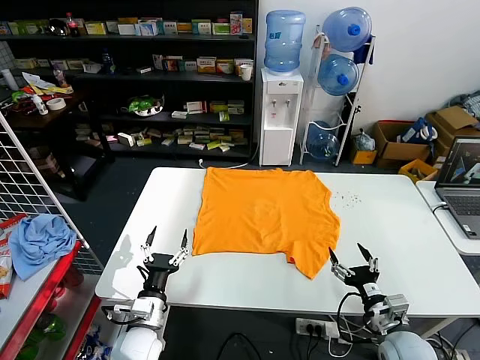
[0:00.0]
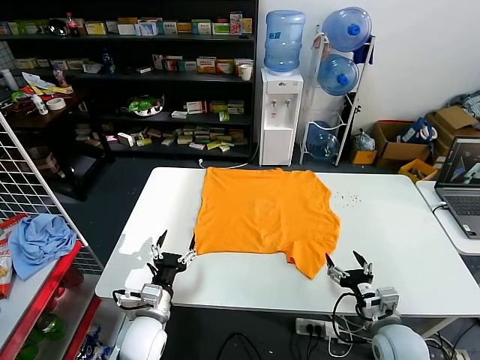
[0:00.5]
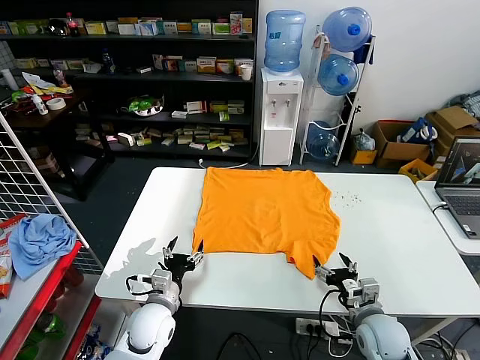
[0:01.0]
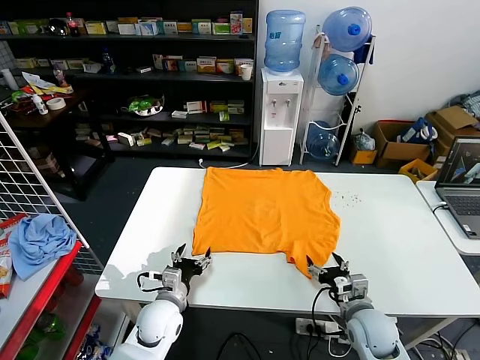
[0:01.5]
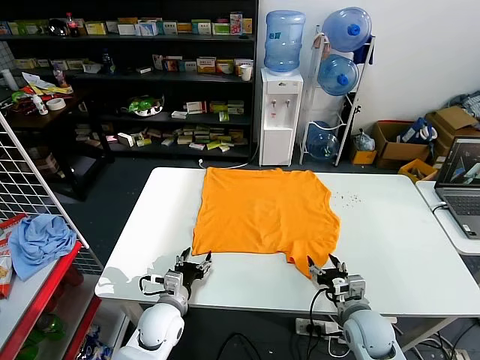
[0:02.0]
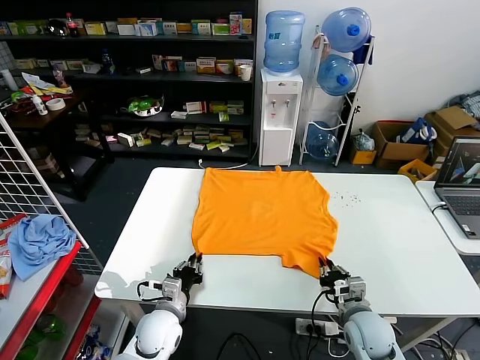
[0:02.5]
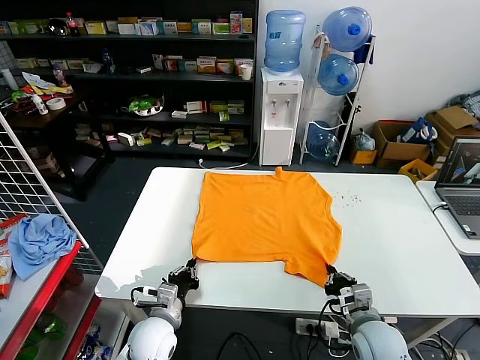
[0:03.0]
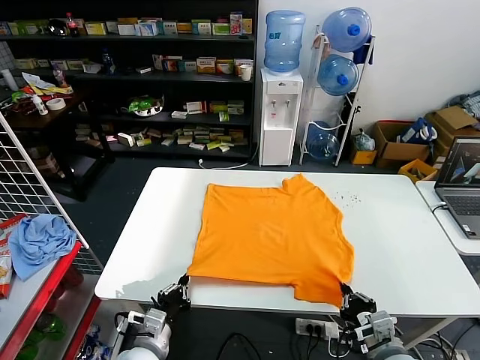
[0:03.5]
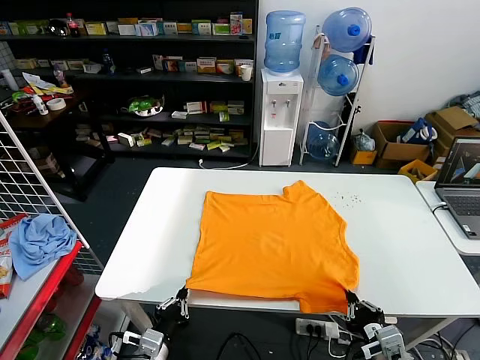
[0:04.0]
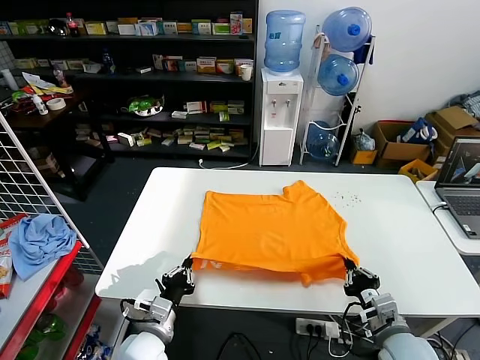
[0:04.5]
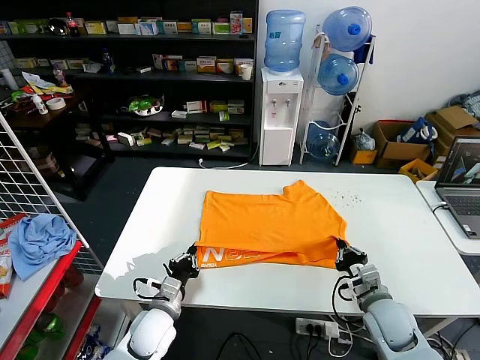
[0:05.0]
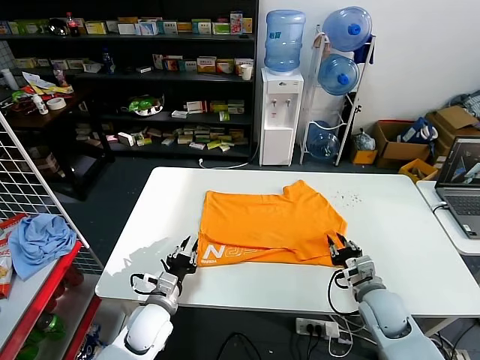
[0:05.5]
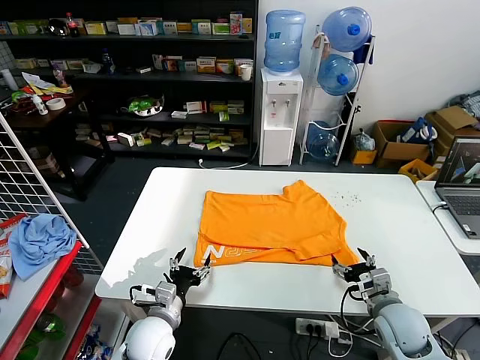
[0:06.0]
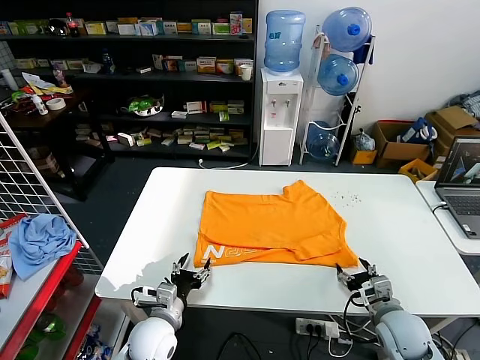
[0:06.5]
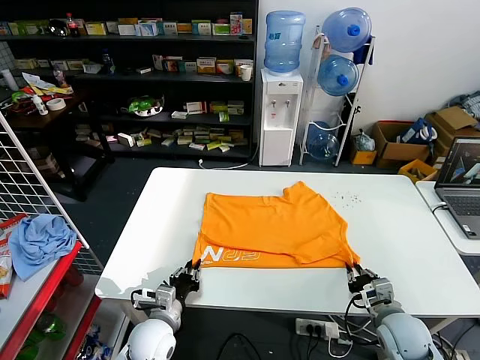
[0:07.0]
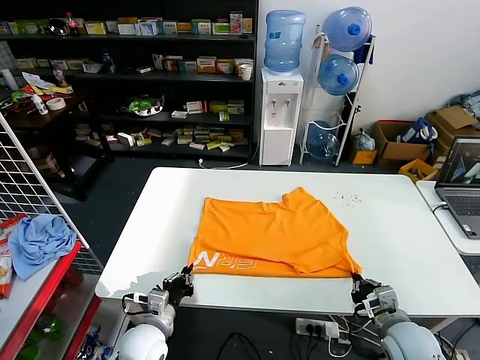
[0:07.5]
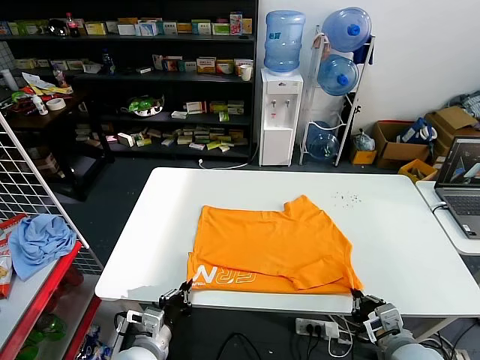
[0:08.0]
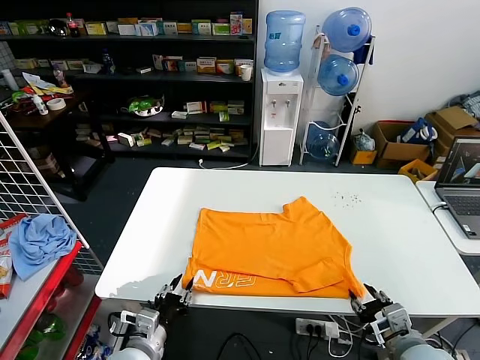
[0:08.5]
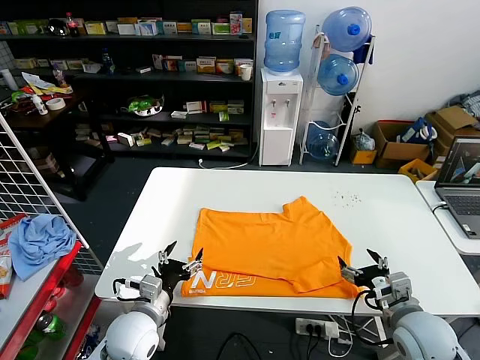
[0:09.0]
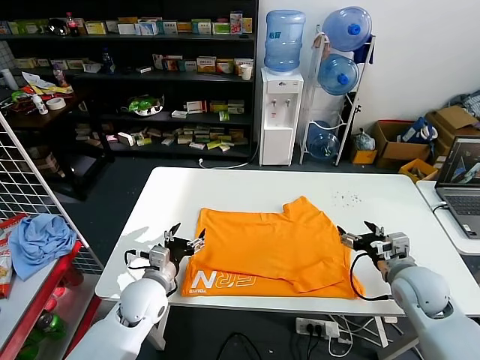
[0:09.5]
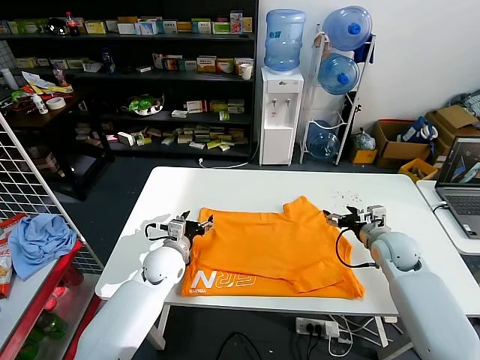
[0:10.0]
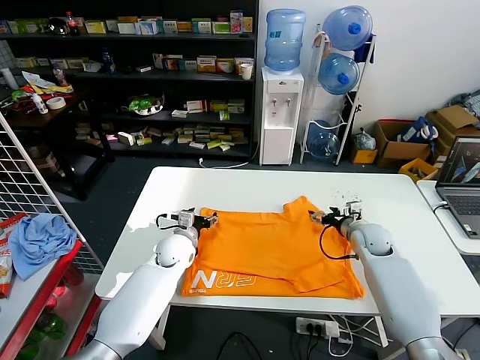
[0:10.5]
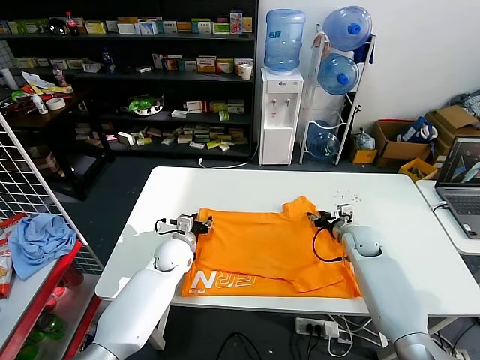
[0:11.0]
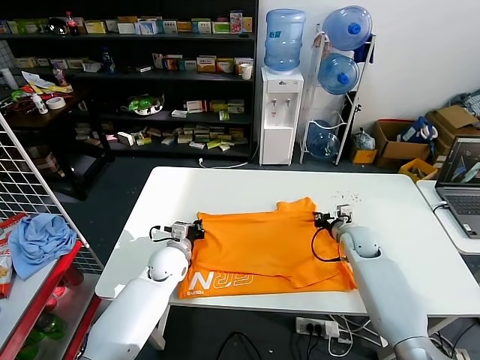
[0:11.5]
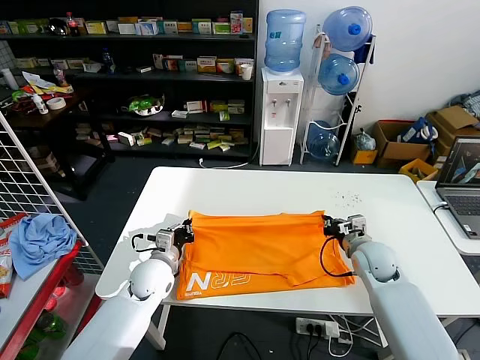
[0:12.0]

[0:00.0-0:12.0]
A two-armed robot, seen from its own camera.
Task of the whole recording: fold and organize the clothes.
Step, 0:00.0 to 0:02.5: use both grippers simultaneously to clamp the lower edge of the clothing fabric.
Step, 0:03.0 to 0:05.5: use both grippers to drag the lower edge of the fabric forward and fold it over the upper edge.
Step, 0:06.0 to 0:08.5: Drag the clothes downward with both gripper.
Step, 0:09.0 to 0:11.5: use both grippers simultaneously to clamp the upper edge of the clothing fabric.
0:02.0 to 0:04.0: The left gripper goes approximately 15 cm backward, and closes its fingers; the right gripper moves backward and upward, some 15 cm, and closes its fingers.
0:04.0 to 0:06.0: Both grippers travel together forward, approximately 10 cm. The right gripper opens; the left gripper opens its fingers.
0:06.0 to 0:08.0: The grippers both shift backward by some 5 cm. The left gripper closes up; the right gripper closes.
0:08.0 to 0:10.0: Both grippers move forward, some 25 cm. The left gripper opens up; the right gripper opens.
0:10.0 to 0:12.0: The left gripper closes, while the right gripper travels forward and back again, approximately 5 cm each way, and closes.

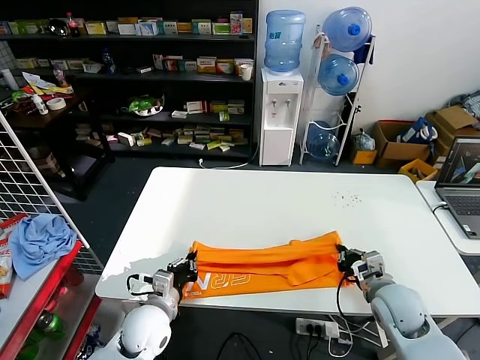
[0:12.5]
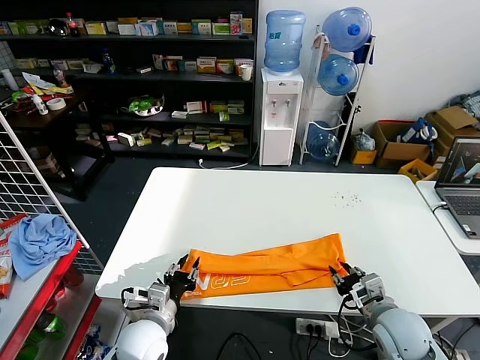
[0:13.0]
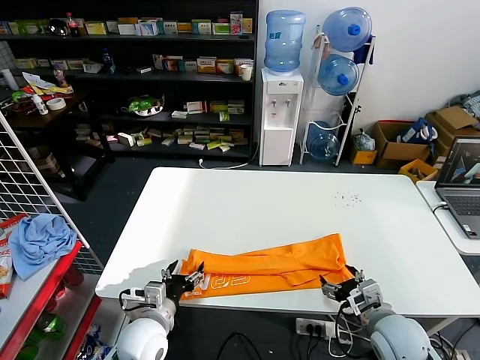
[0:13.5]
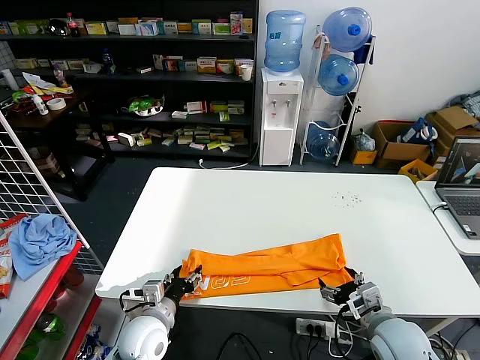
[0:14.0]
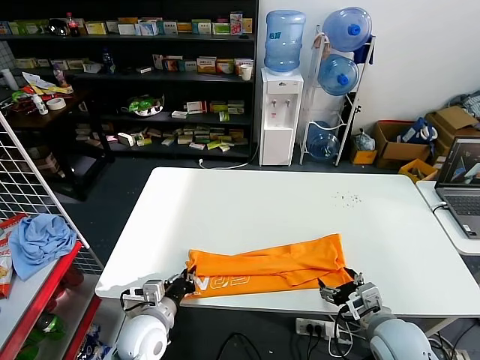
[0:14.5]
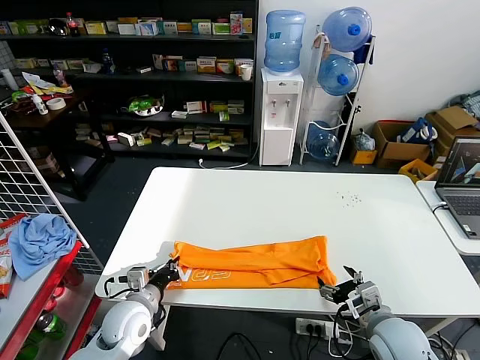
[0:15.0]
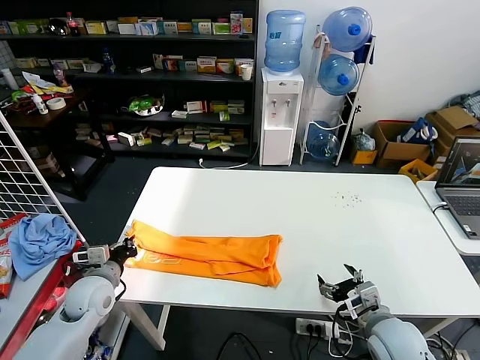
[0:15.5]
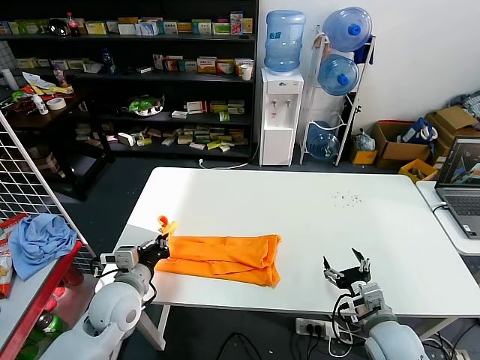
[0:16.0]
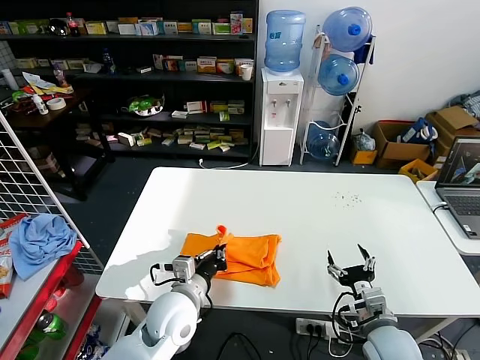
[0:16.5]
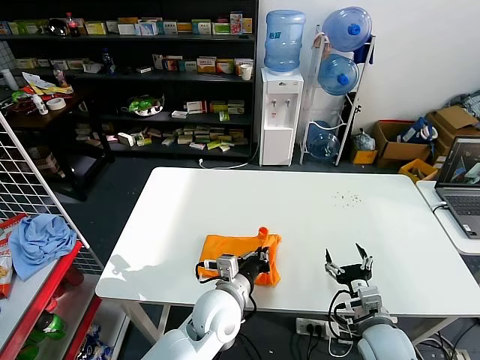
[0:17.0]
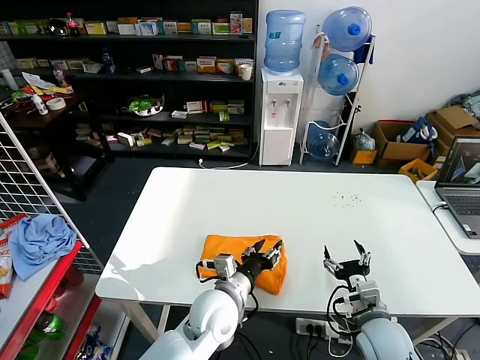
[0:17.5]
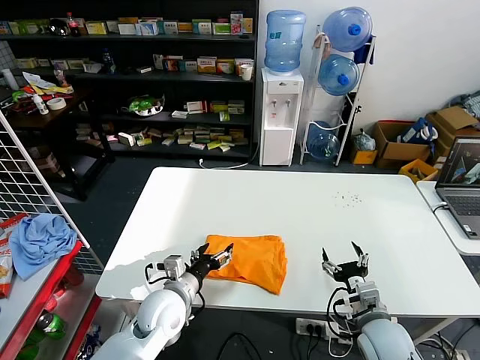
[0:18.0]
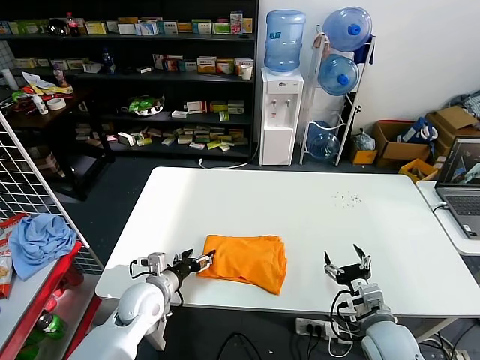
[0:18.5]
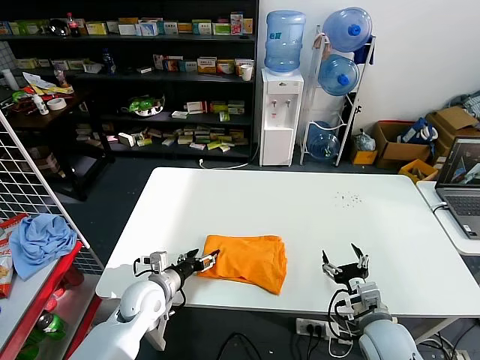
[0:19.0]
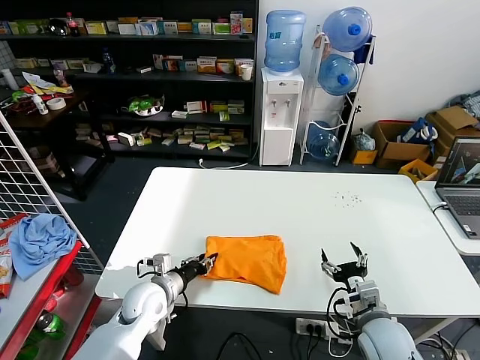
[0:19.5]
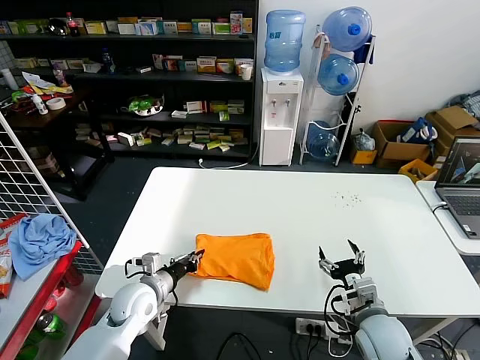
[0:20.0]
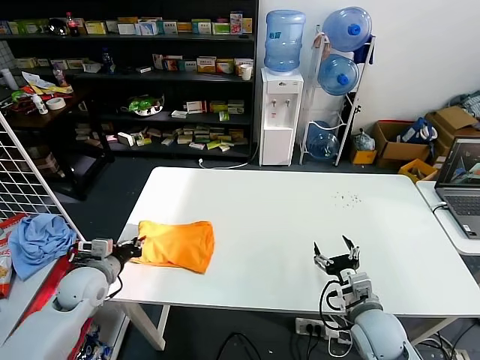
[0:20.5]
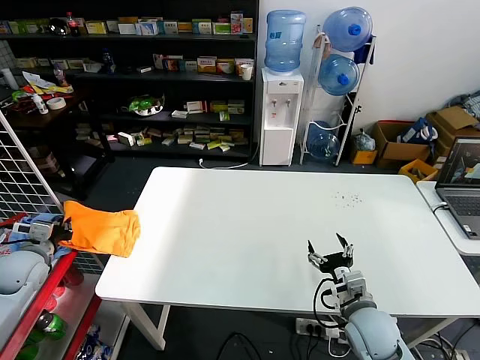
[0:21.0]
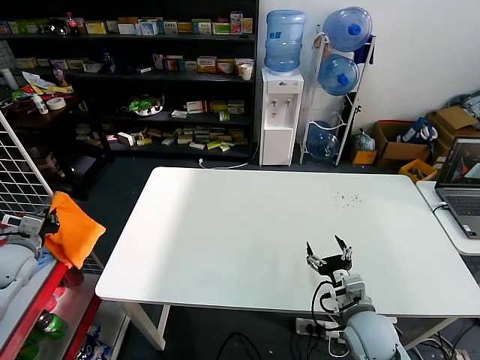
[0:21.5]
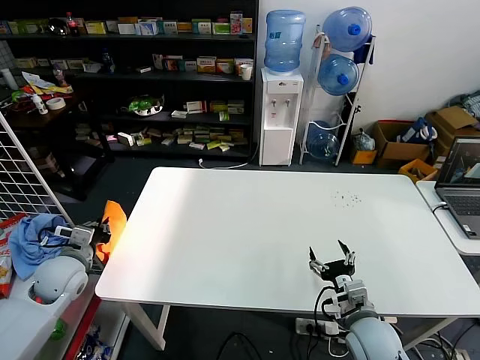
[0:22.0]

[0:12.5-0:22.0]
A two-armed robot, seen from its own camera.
Task of the whole recording: fold and organize the clothes.
Step, 0:13.5 to 0:14.5: use the left gripper to clamp the left edge of the fabric.
Step, 0:15.0 to 0:17.5: use the left gripper to drag the left edge of the fabric to the left and folds it over the right edge.
0:12.5 to 0:14.5: The left gripper opens and closes again. Meanwhile the right gripper goes roughly 5 cm backward, and opens its fingers.
0:14.5 to 0:16.5: The left gripper travels upward by about 5 cm, and travels to the left and back again, some 15 cm each way.
0:16.5 to 0:18.0: The left gripper moves approximately 10 cm to the right and comes back, and opens its fingers.
0:18.0 to 0:20.0: The left gripper shifts roughly 10 cm to the left, and closes.
0:20.0 to 0:22.0: The left gripper travels to the left and upward by approximately 20 cm.

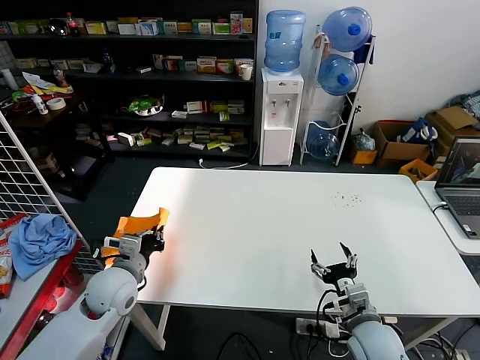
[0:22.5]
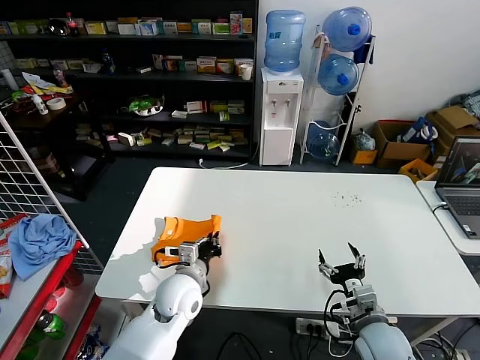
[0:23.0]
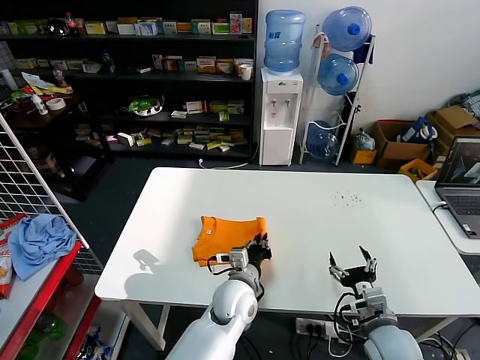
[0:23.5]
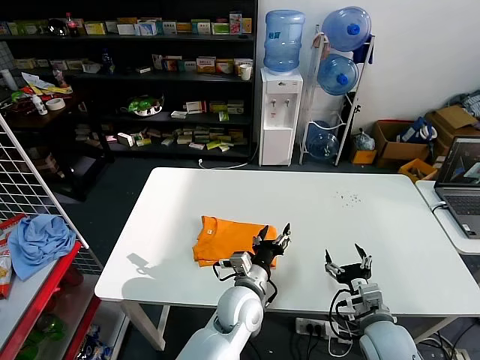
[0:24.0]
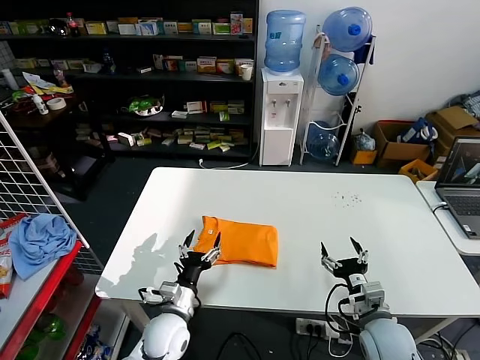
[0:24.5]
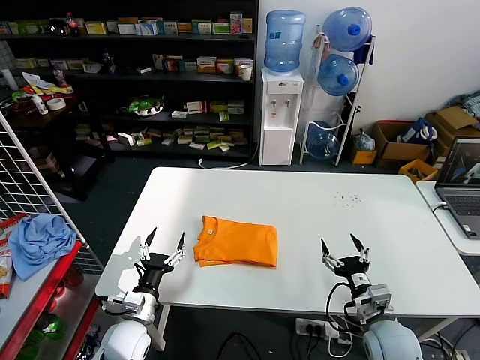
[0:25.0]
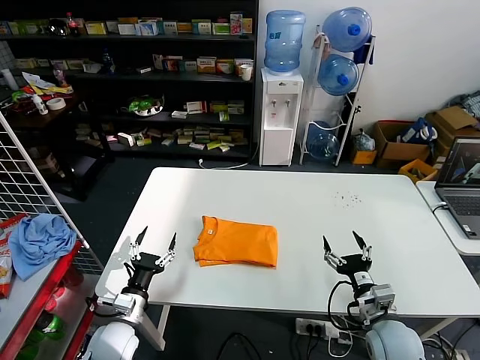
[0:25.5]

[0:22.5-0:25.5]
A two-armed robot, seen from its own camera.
Task of the whole recording: fold and organize the clothes.
0:22.5 to 0:24.0: The left gripper goes roughly 30 cm to the right, and opens its fingers.
0:24.0 to 0:25.5: The left gripper shifts approximately 30 cm to the left.
